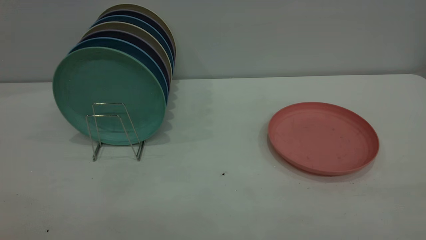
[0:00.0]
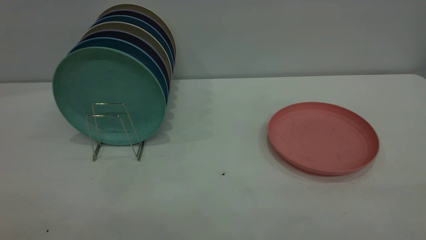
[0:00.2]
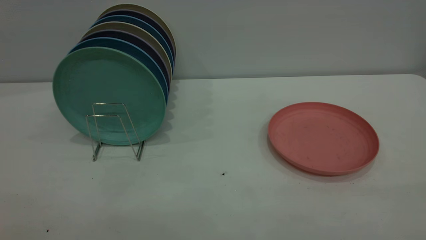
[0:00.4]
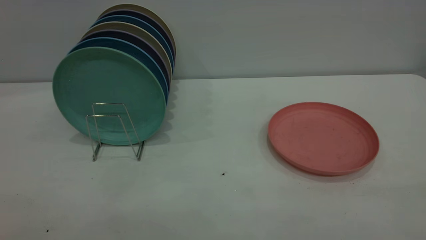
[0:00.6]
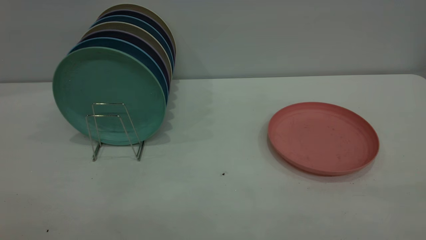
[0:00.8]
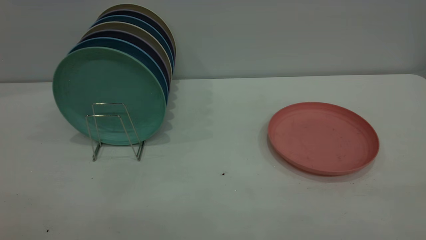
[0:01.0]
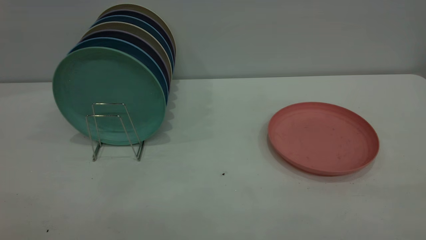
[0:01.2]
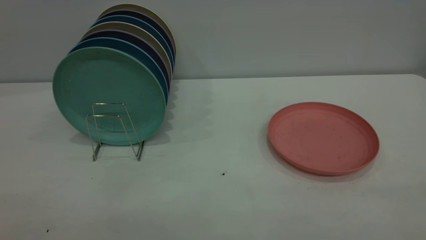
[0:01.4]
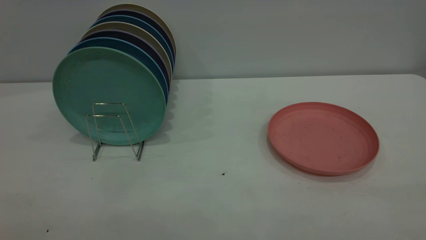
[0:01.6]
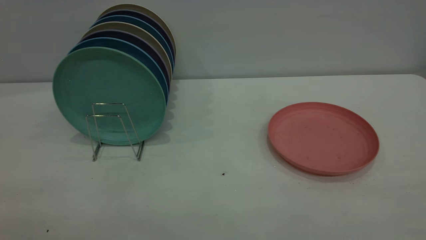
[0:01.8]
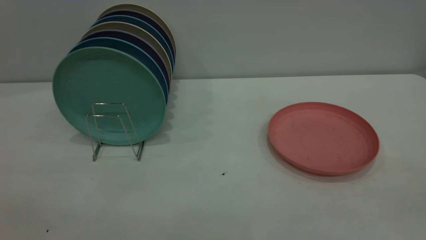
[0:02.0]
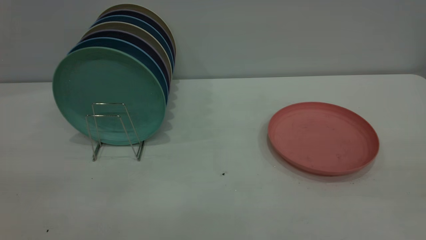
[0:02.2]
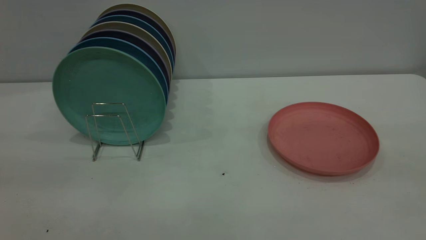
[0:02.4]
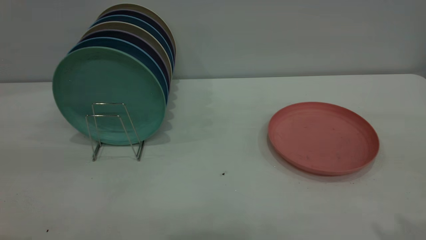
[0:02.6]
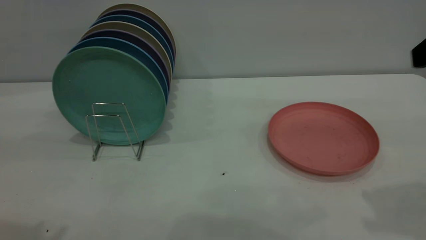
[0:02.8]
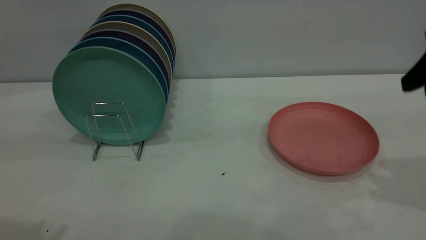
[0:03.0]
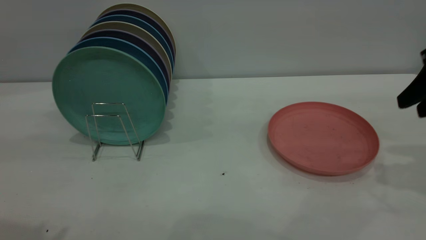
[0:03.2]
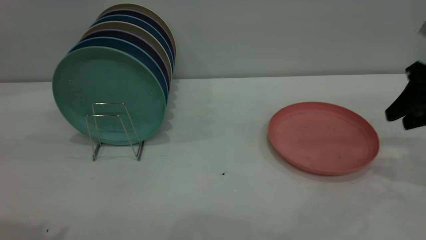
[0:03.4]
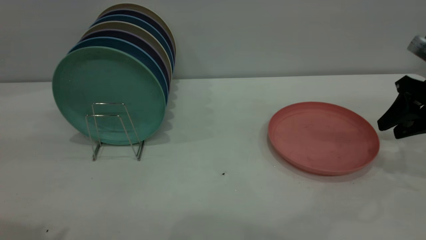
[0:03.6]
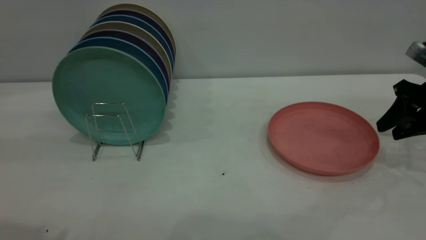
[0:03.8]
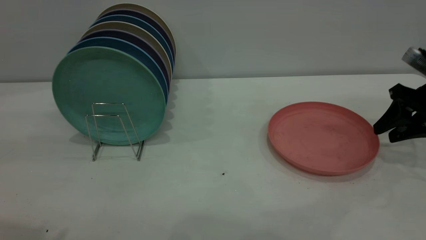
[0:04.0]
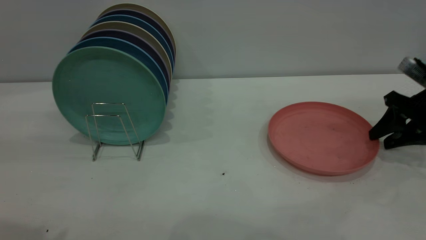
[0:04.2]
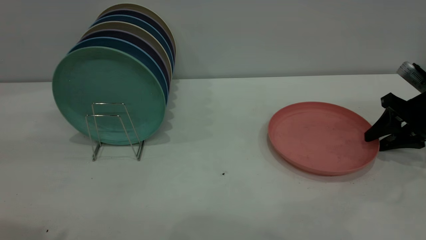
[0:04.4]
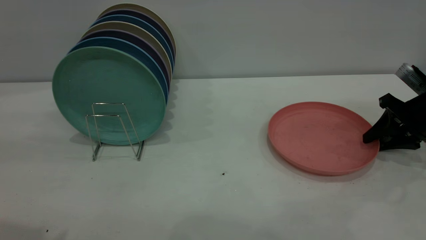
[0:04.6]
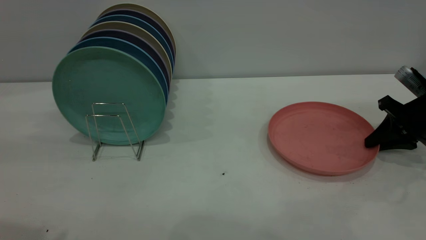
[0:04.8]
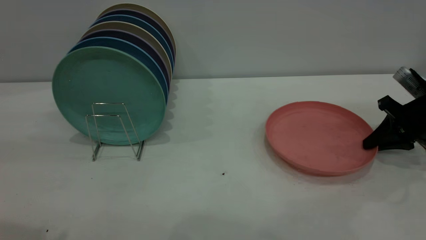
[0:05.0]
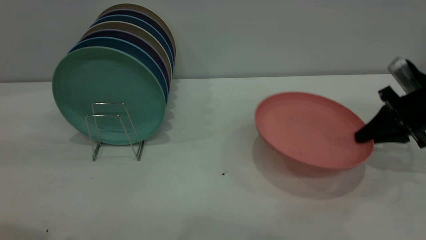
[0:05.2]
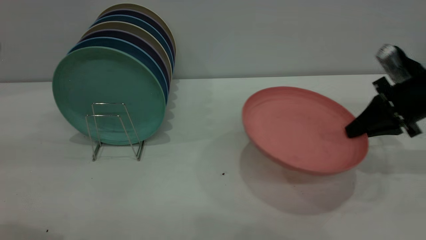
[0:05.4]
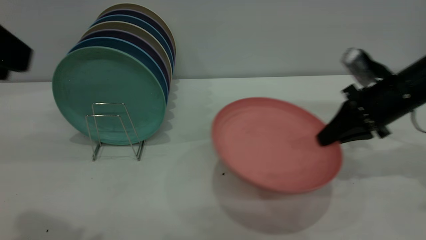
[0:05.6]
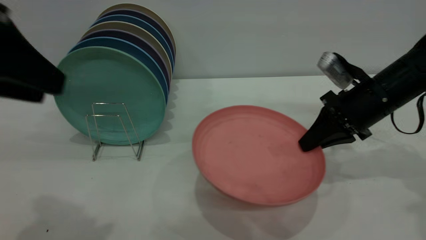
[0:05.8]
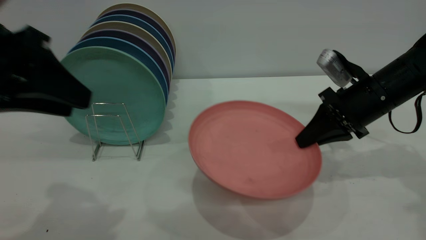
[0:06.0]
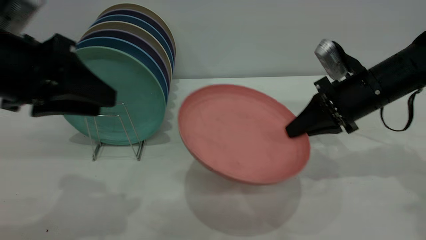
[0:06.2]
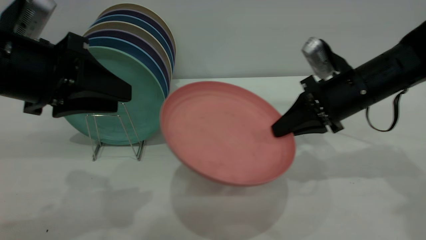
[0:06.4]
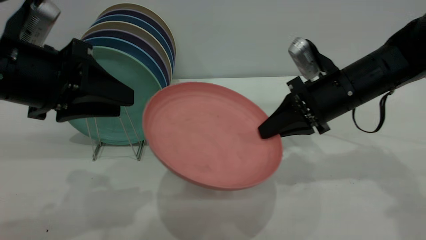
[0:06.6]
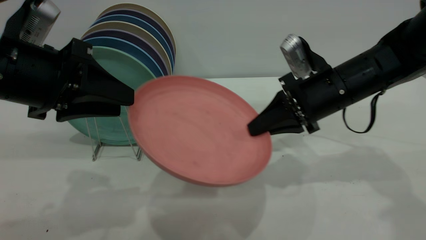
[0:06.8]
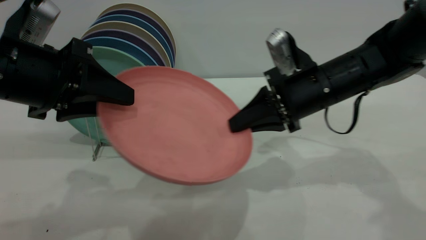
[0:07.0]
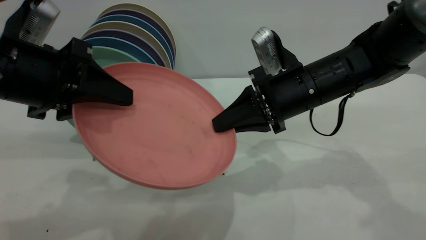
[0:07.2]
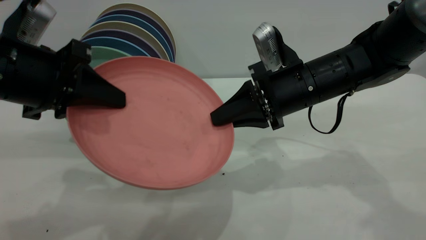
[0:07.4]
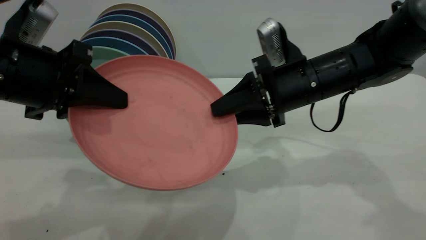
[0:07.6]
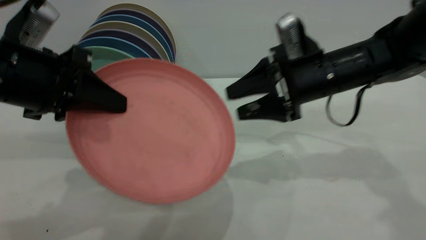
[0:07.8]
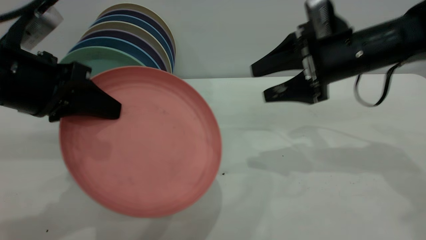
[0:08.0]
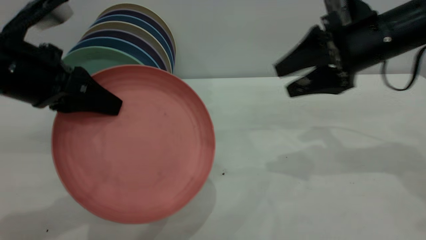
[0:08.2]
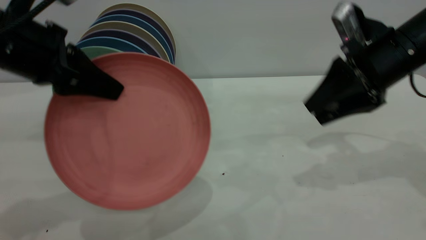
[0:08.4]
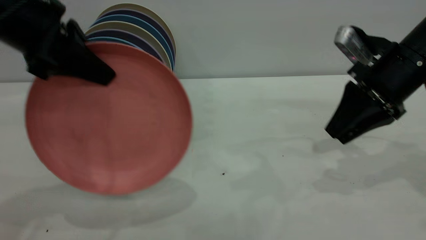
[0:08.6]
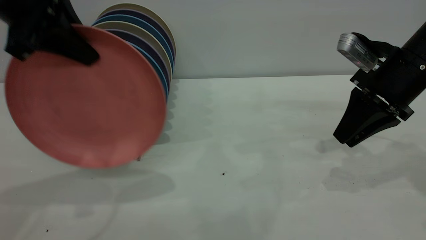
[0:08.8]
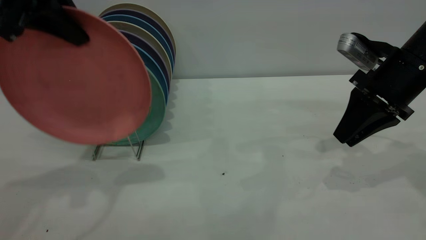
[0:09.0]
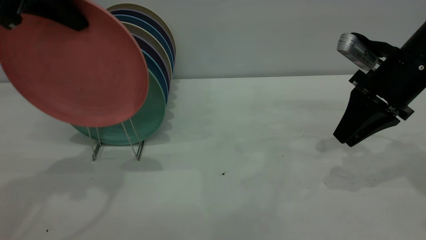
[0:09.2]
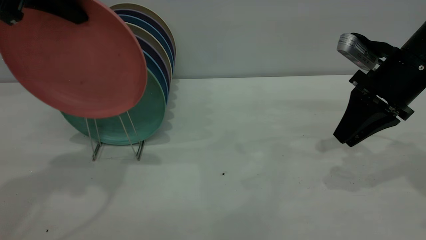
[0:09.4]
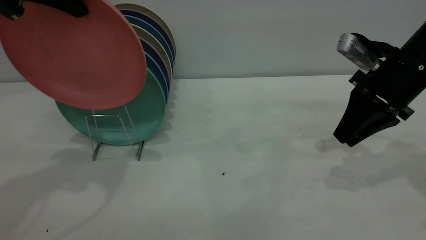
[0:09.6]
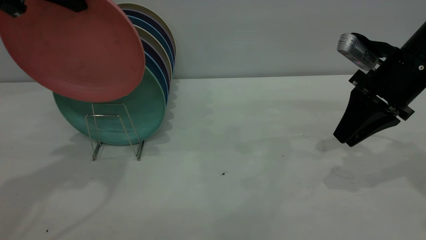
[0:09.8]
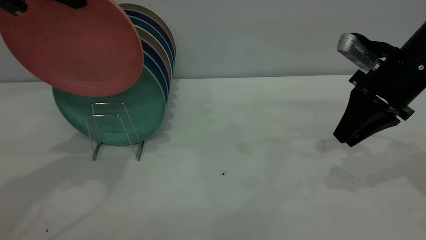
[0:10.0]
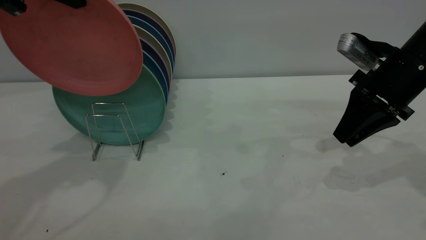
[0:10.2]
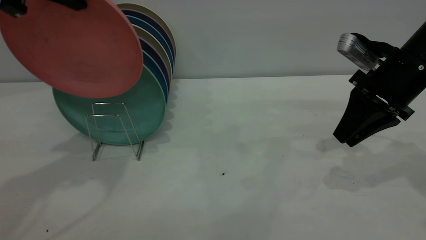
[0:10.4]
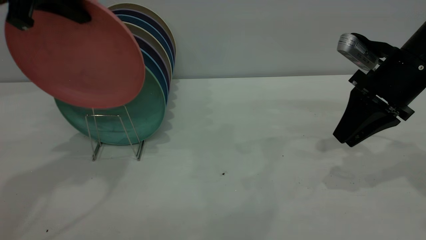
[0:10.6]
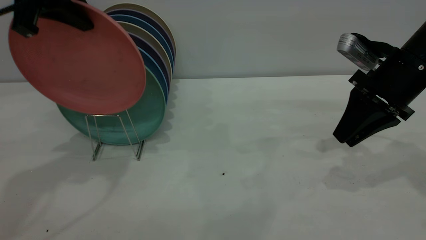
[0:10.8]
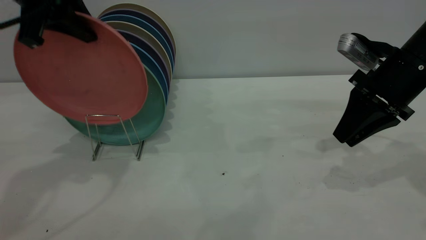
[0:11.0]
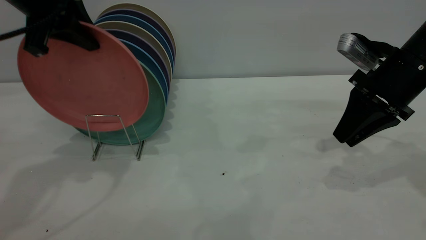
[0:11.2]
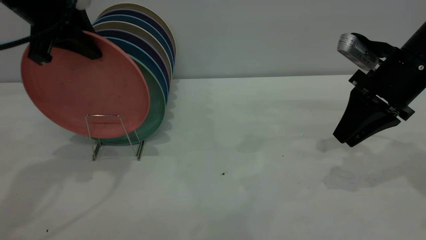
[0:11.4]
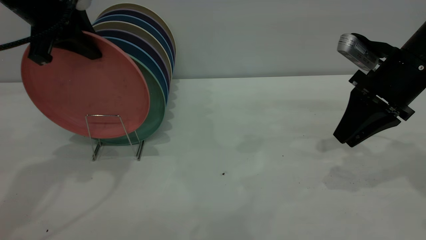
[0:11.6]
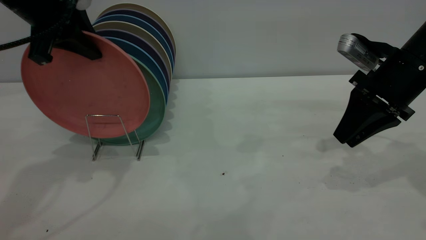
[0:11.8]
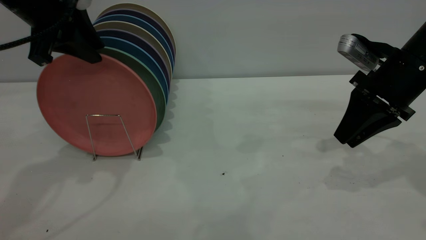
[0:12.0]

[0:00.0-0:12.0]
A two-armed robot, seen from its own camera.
Task of the whole recording: the right gripper grasp the pink plate, the right gripper pass the pink plate to the left gripper, and the left gripper place the pink plate on the plate rack.
Step, 0:00.0 to 0:05.6: Pick up the plate with the right gripper.
Step, 0:05.8 to 0:09.2: Pass the plate from the right gripper to the left gripper.
0:00.0 to 0:01.6: Neither gripper changes place.
0:01.6 to 0:03.0: The right gripper heads forward, covering approximately 30 cm.
0:03.0 to 0:04.4: The right gripper goes about 20 cm downward and forward.
0:04.4 to 0:06.0: The left gripper goes roughly 10 cm downward and forward. Meanwhile the right gripper shifts some 15 cm to the left, and closes its fingers.
0:06.0 to 0:07.6: The right gripper heads to the left, covering roughly 10 cm, and opens up, while the left gripper changes place by about 5 cm, and closes up.
0:07.6 to 0:09.0: The left gripper goes about 15 cm upward and forward; the right gripper travels to the right by approximately 15 cm, and opens and closes again.
0:09.0 to 0:10.4: The grippers stay close to where they were, moving slightly.
0:10.4 to 0:12.0: The left gripper shifts approximately 5 cm downward, and opens up.

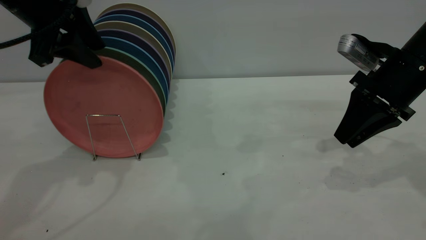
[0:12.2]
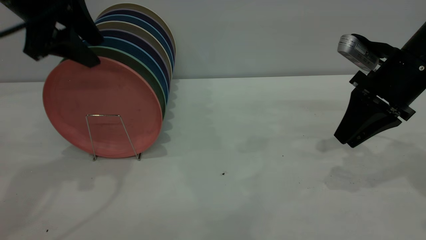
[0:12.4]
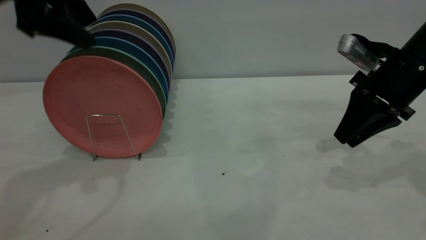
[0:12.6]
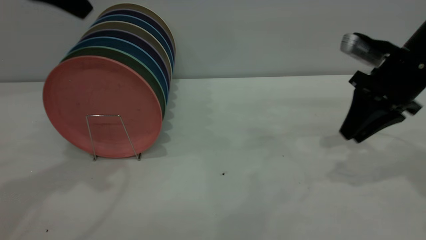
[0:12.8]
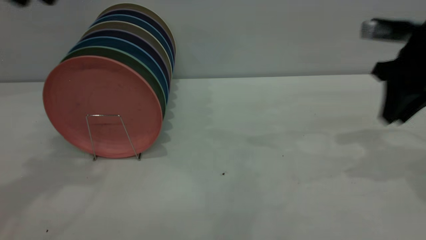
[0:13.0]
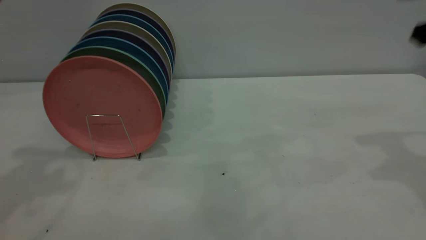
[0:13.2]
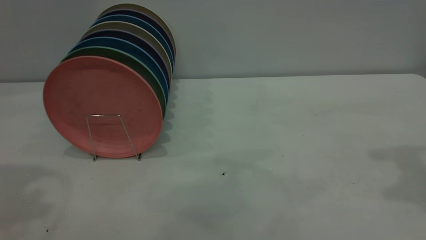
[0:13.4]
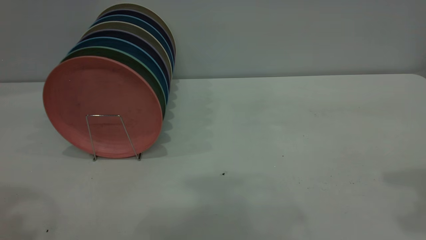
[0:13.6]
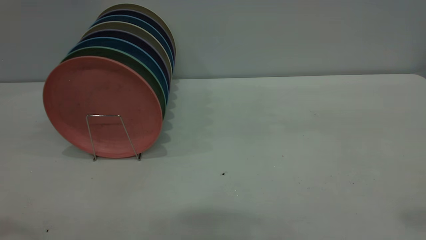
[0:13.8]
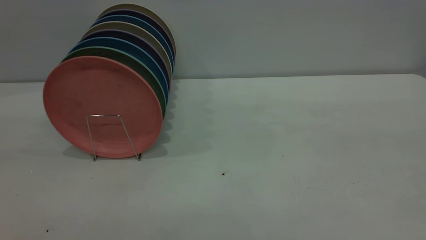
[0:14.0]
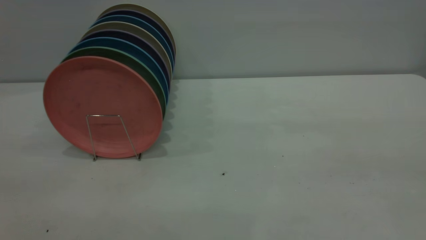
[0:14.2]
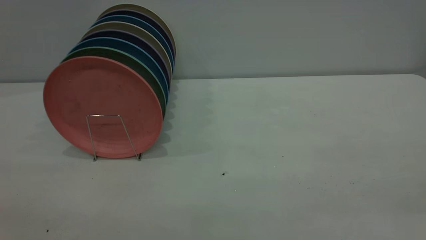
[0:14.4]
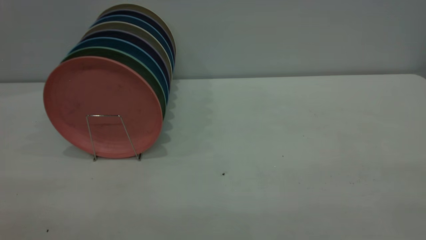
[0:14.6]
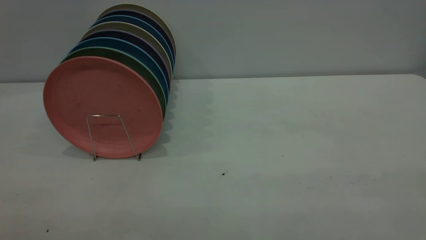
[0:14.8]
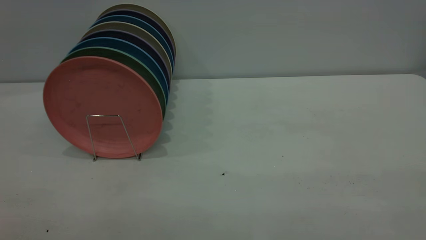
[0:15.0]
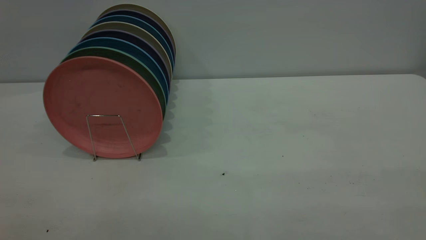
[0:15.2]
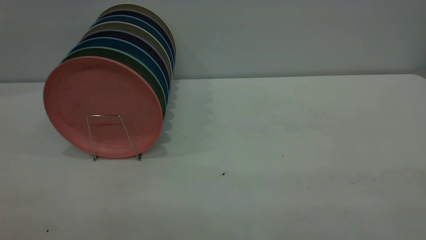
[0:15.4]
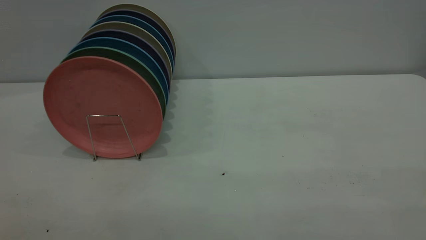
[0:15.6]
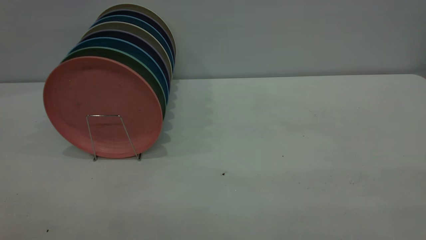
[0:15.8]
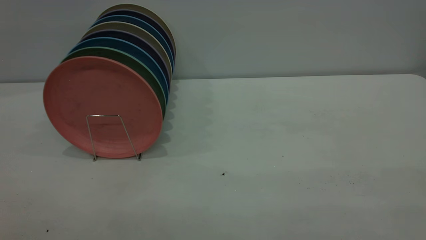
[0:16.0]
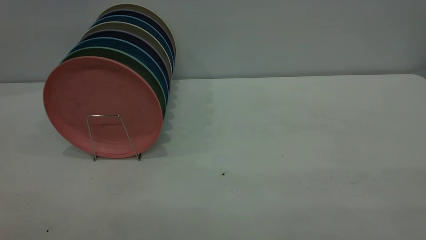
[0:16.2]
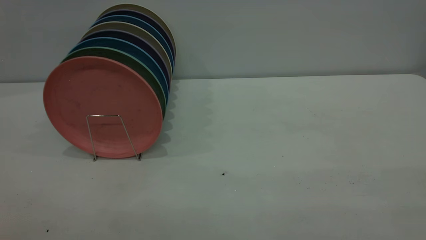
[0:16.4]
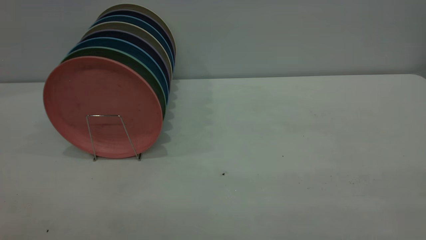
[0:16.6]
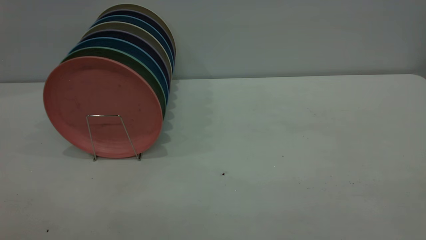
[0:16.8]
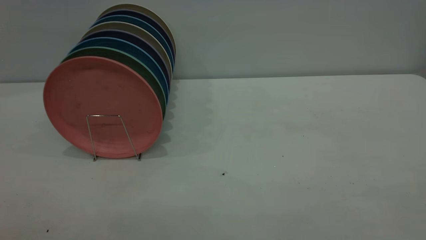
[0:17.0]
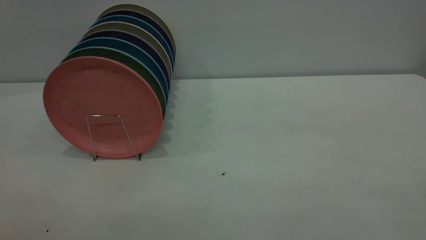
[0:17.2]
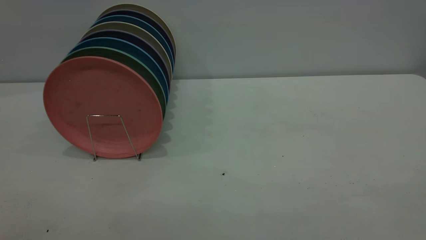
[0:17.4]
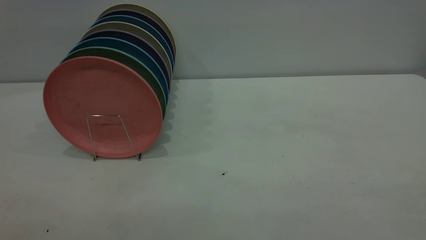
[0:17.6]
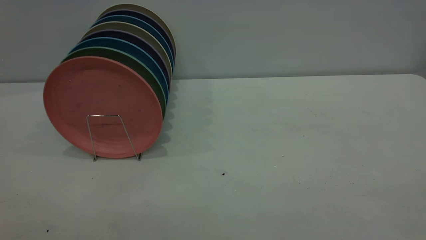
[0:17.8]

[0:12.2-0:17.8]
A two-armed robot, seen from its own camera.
Task of the whole recording: the right gripper grasp the pink plate, the right gripper pass the pink plate to the left gripper, and the left gripper place the pink plate on the plate rack.
0:12.2 to 0:13.6: The left gripper goes approximately 25 cm backward and upward. The right gripper goes some 30 cm upward and backward.
